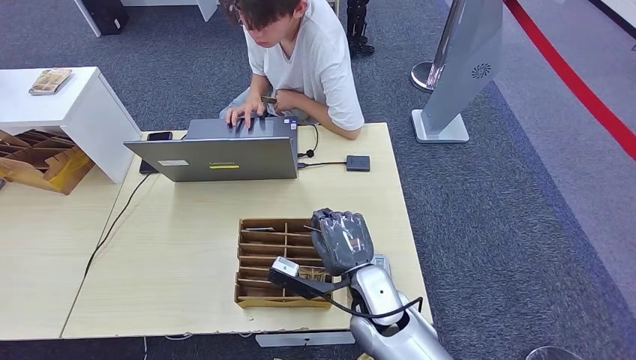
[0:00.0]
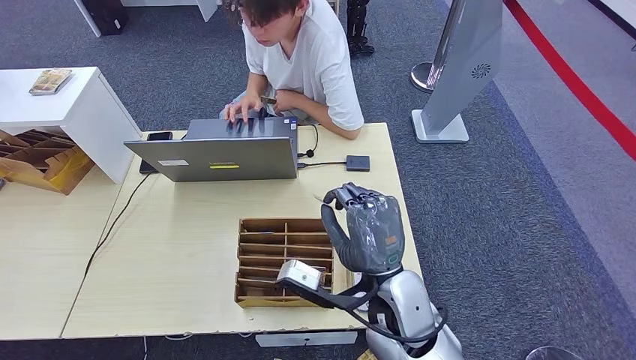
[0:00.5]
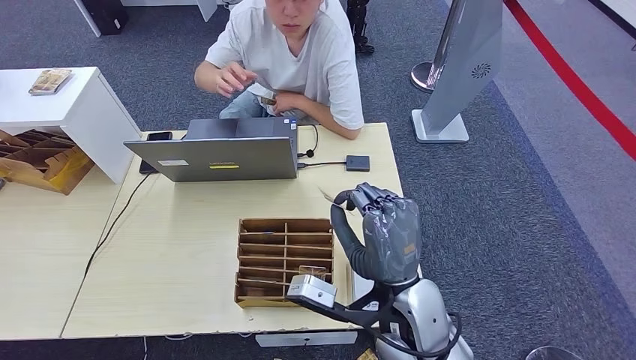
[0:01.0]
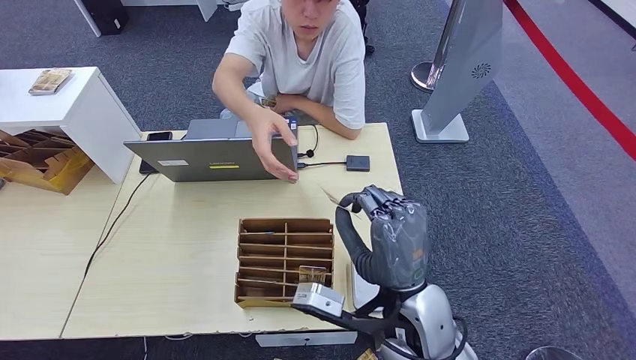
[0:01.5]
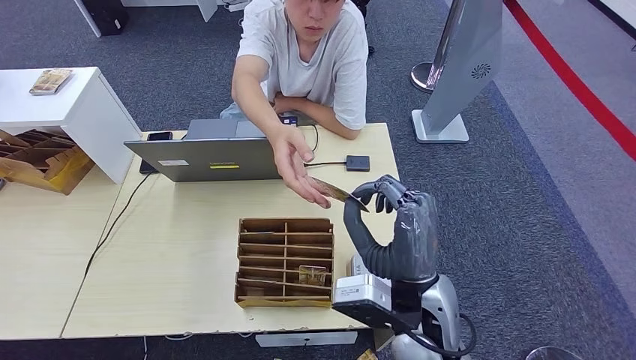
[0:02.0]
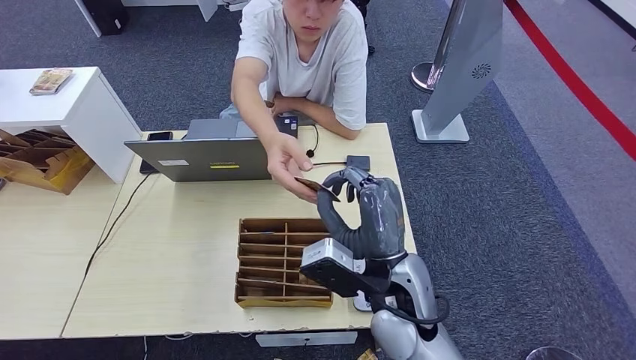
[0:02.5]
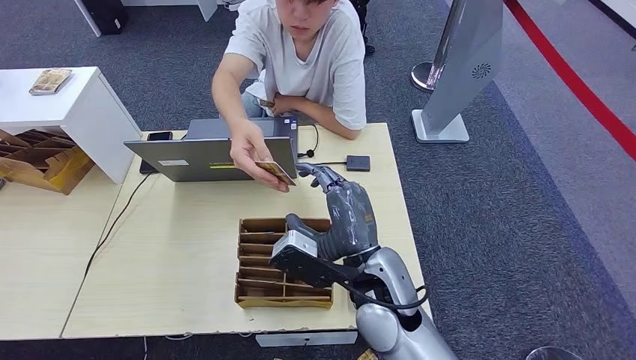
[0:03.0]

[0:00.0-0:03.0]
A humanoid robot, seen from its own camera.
Step, 0.5 to 3.0 s: Hand the room key to the person.
0.0 to 1.5 s: The right hand is displaced upward by some 10 cm.
1.5 to 3.0 s: The right hand moves about 5 cm.

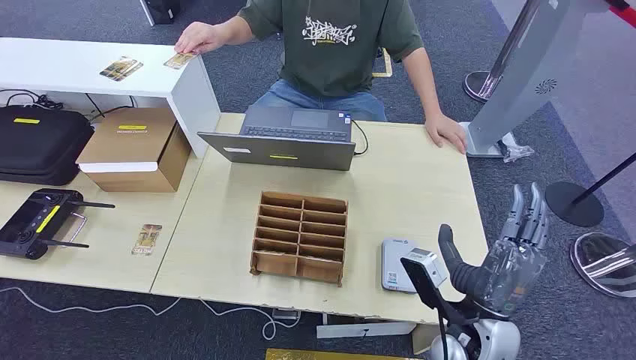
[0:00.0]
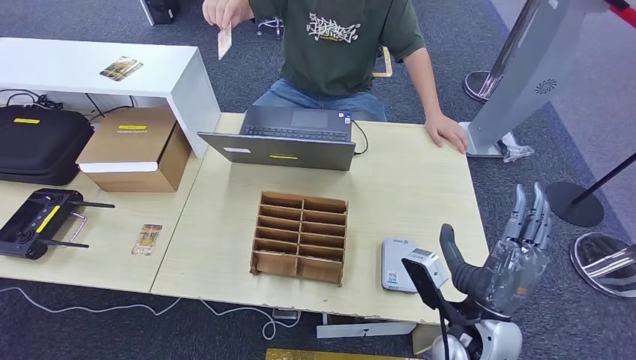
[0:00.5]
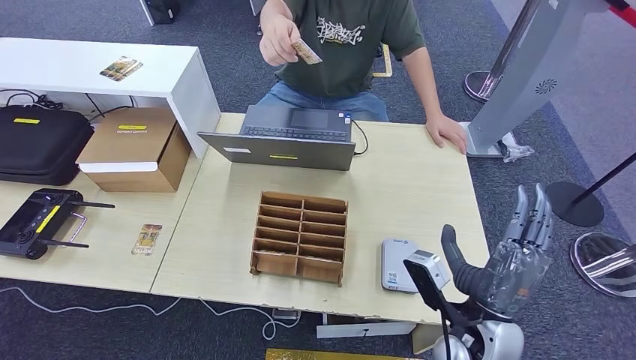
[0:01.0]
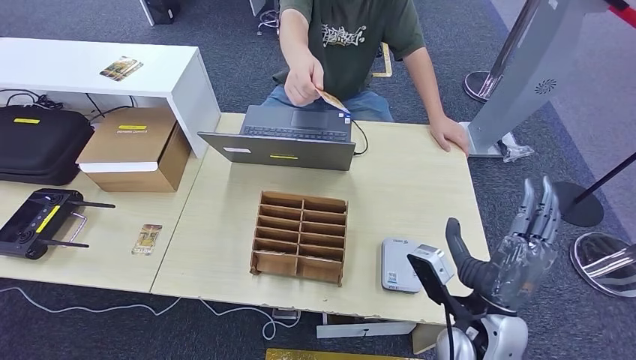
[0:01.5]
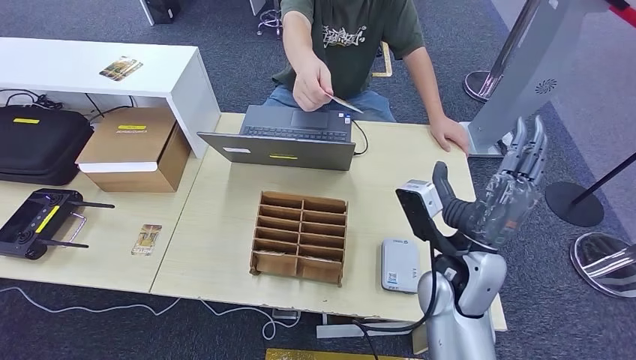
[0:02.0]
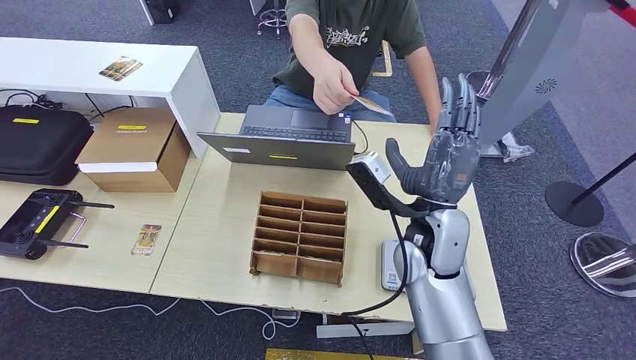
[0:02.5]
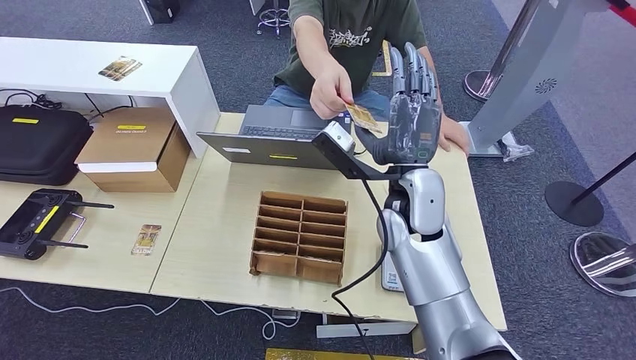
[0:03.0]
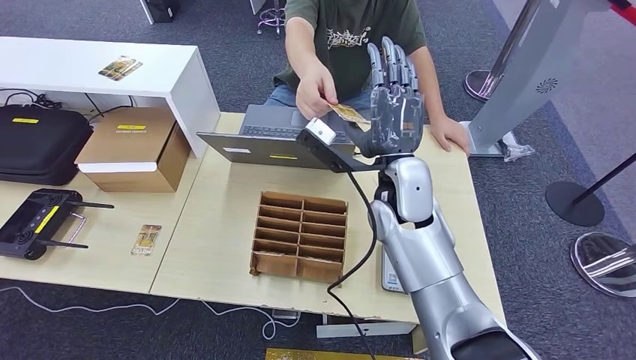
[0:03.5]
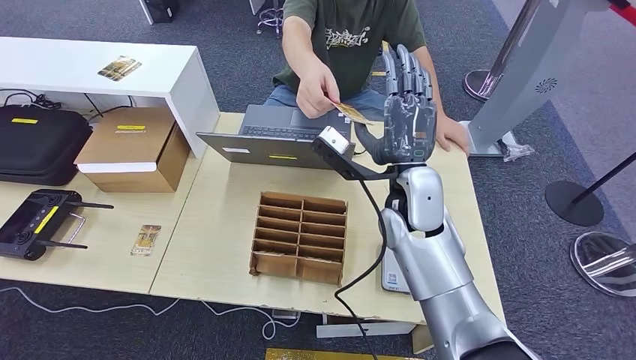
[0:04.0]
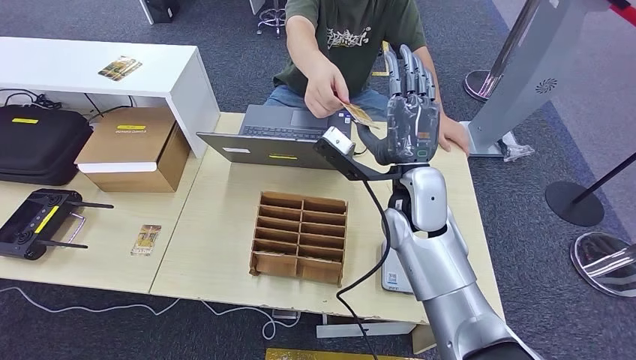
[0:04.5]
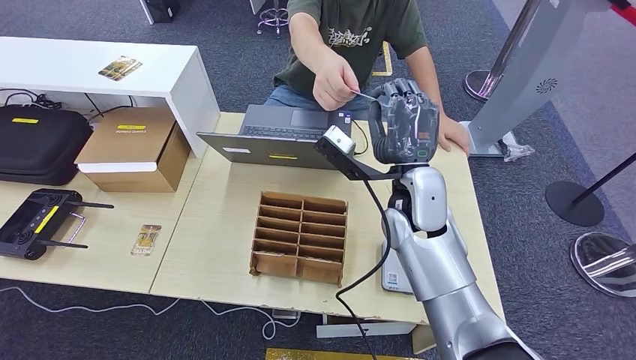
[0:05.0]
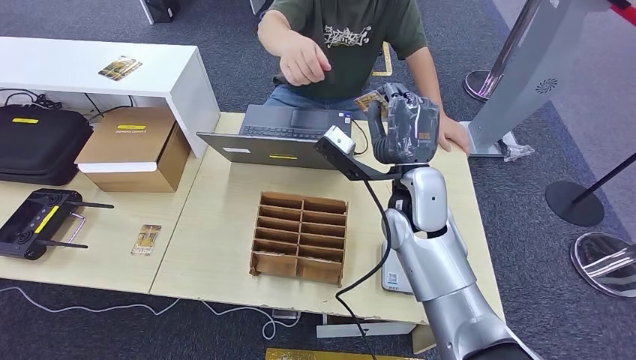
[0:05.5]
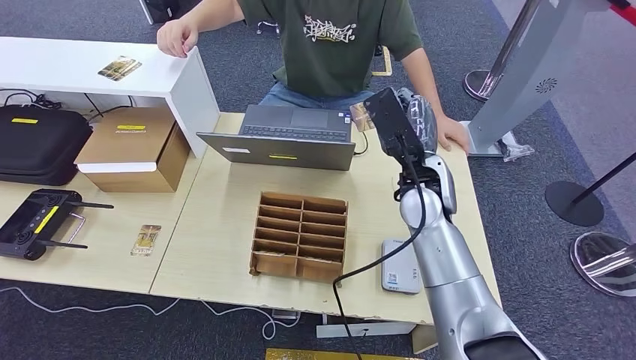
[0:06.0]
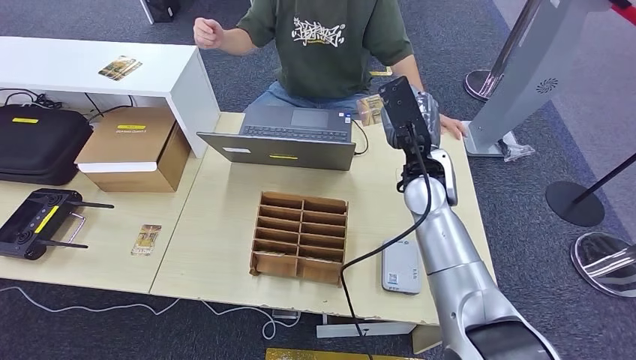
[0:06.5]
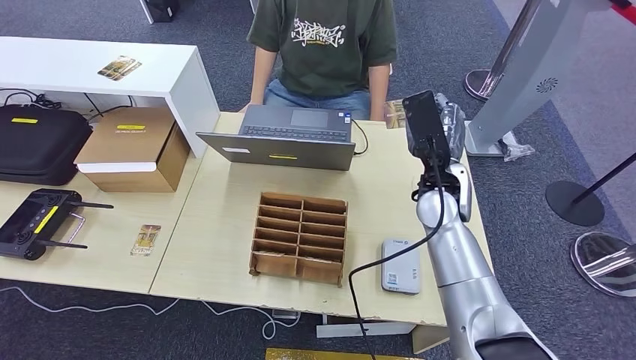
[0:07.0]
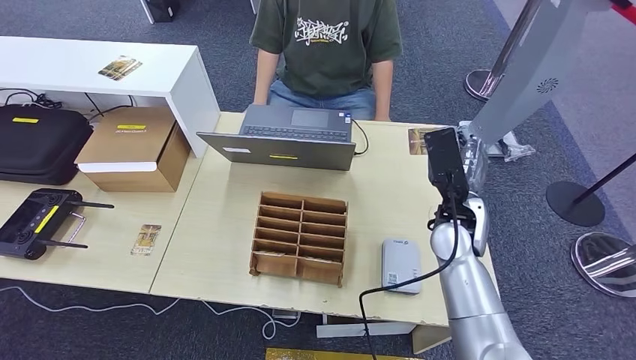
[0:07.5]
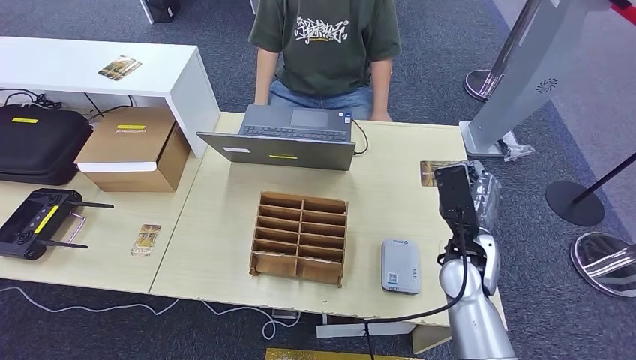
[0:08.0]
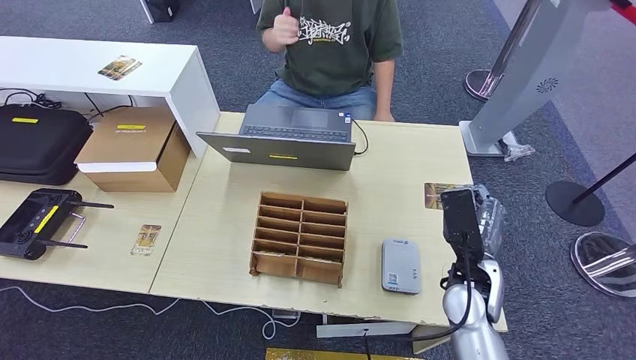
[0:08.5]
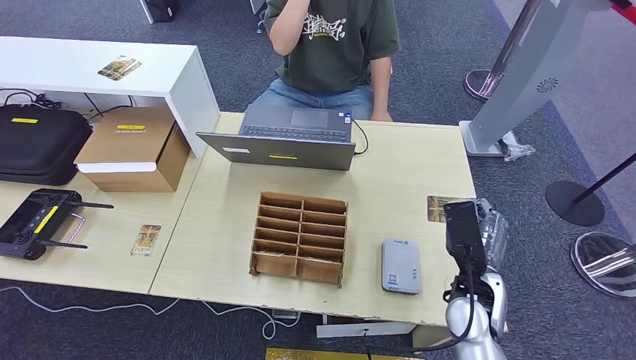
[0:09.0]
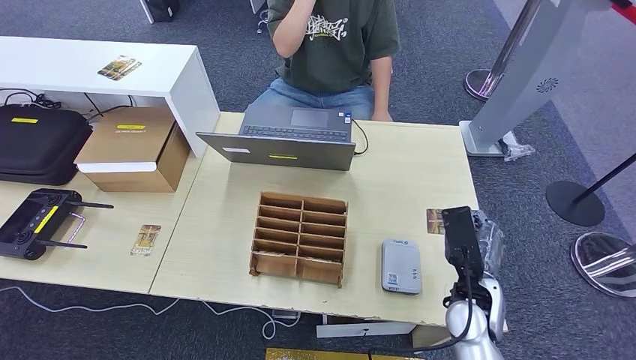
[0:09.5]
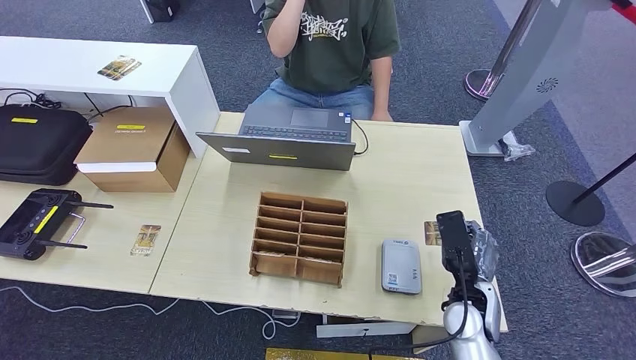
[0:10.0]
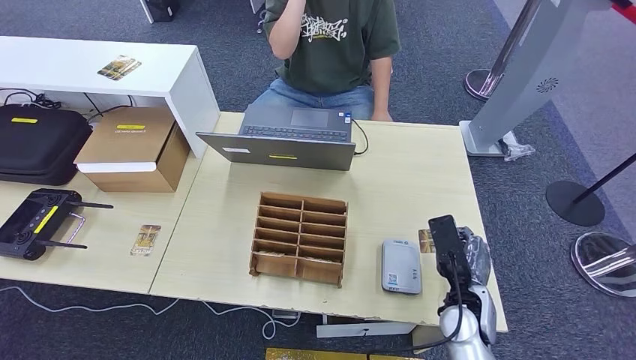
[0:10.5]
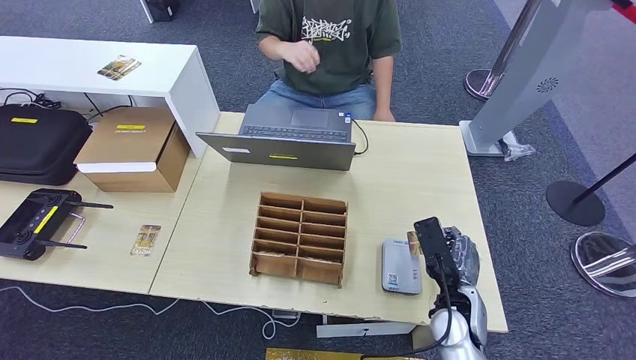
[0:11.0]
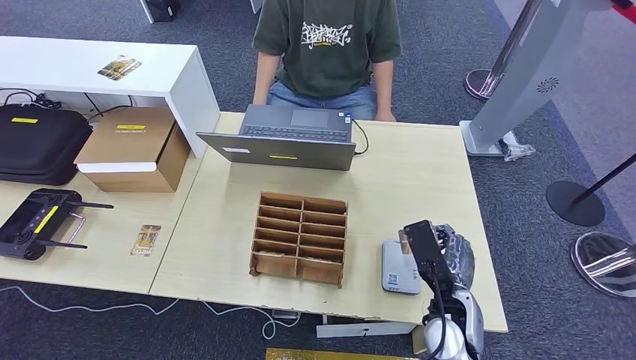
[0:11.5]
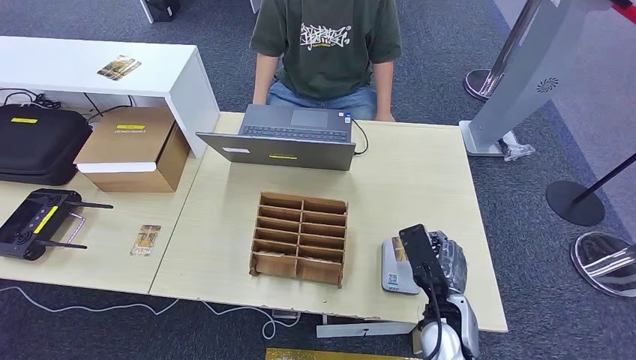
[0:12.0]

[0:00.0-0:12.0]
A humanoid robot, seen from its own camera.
Step, 0.0 to 5.0 s: Take the ID card from the person's hand.
2.0 to 4.0 s: The right hand is displaced forward, to the left and upward by about 15 cm.
6.0 to 8.0 s: The right hand travels downward, backward and to the right by approximately 15 cm.
8.0 to 10.0 s: The right hand is displaced downward and backward by about 10 cm.
10.0 to 12.0 s: The right hand goes roughly 5 cm to the left.

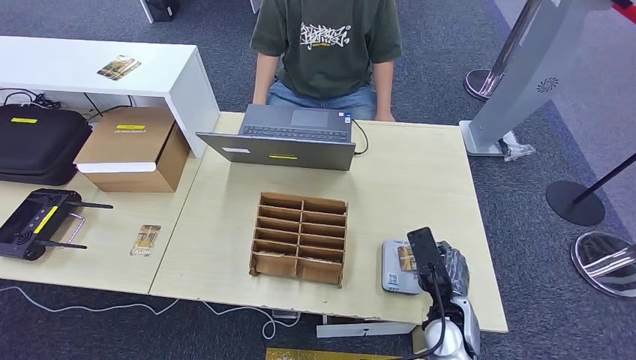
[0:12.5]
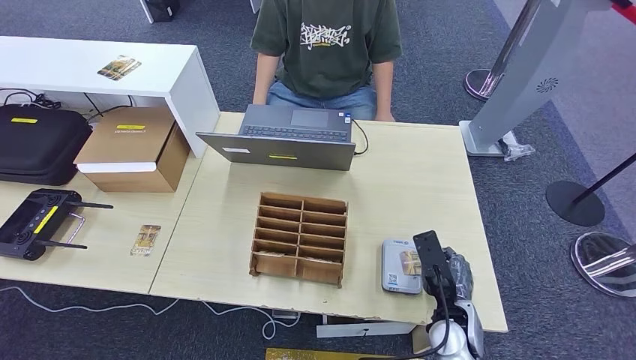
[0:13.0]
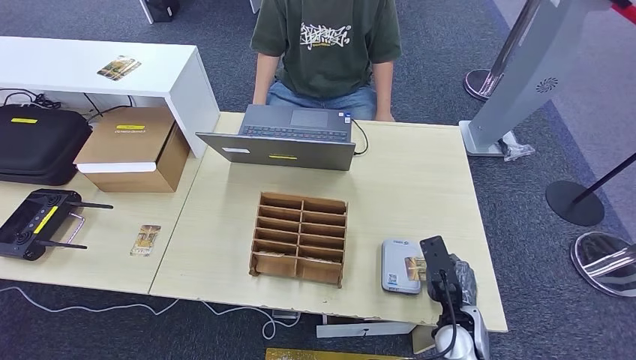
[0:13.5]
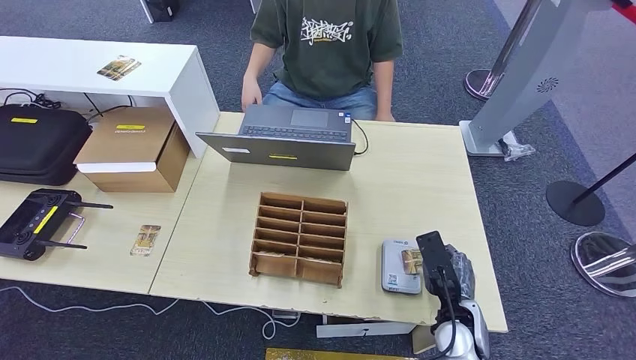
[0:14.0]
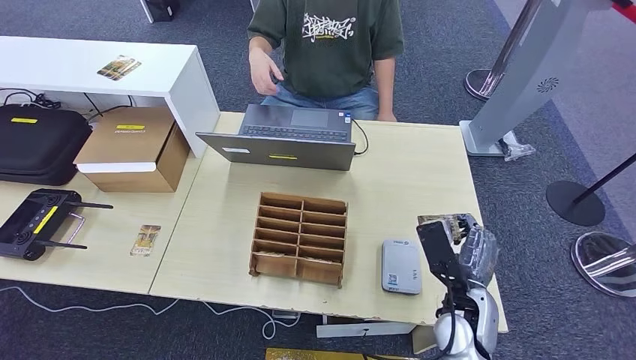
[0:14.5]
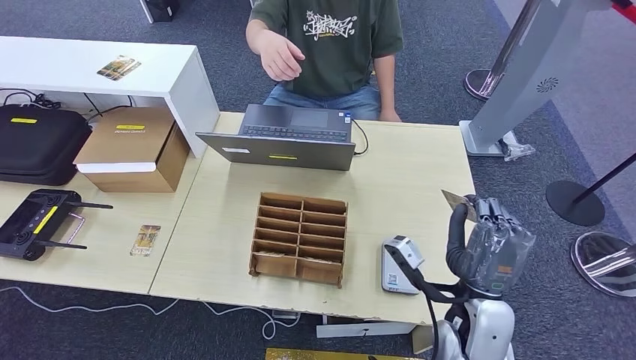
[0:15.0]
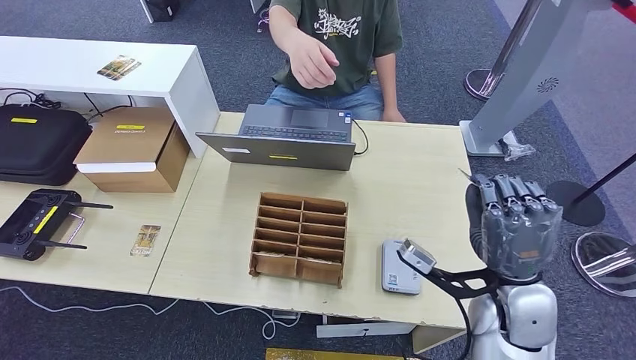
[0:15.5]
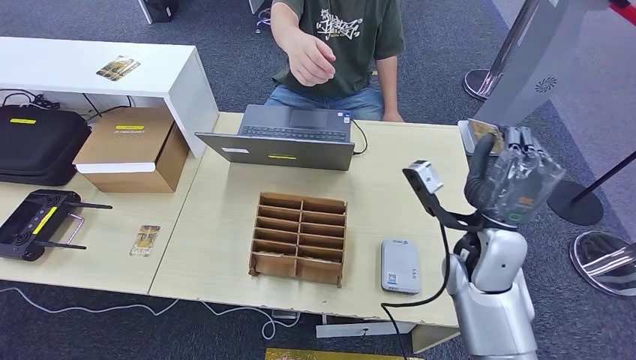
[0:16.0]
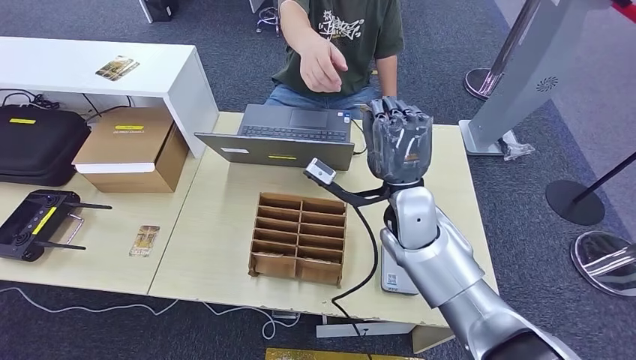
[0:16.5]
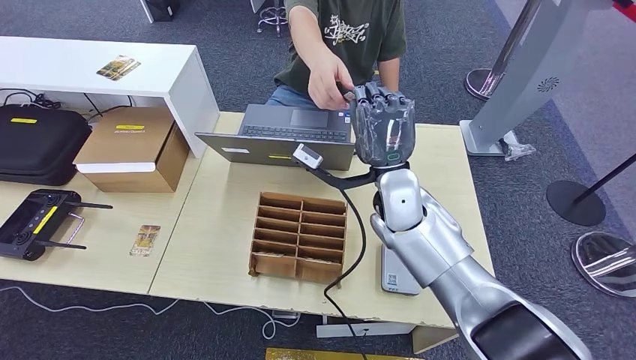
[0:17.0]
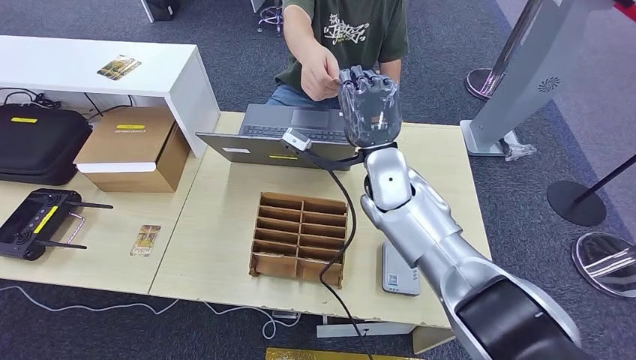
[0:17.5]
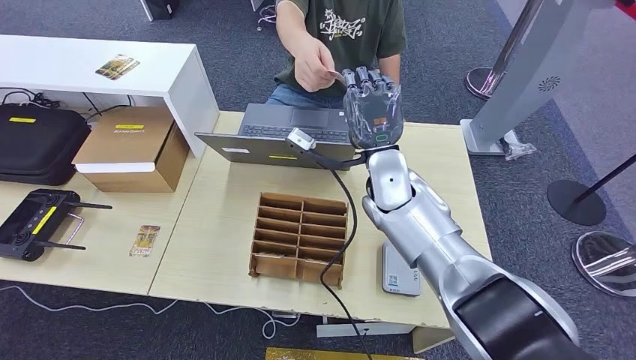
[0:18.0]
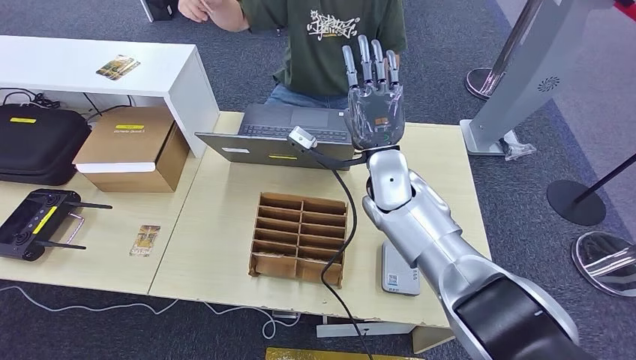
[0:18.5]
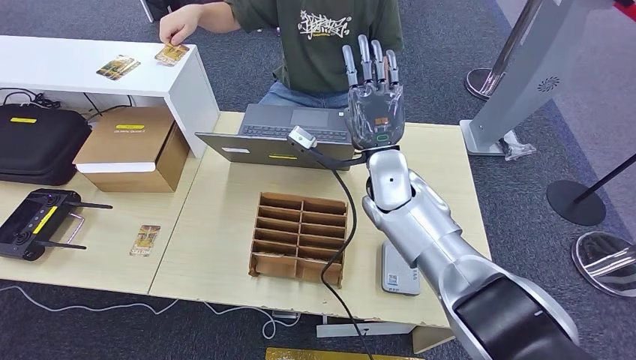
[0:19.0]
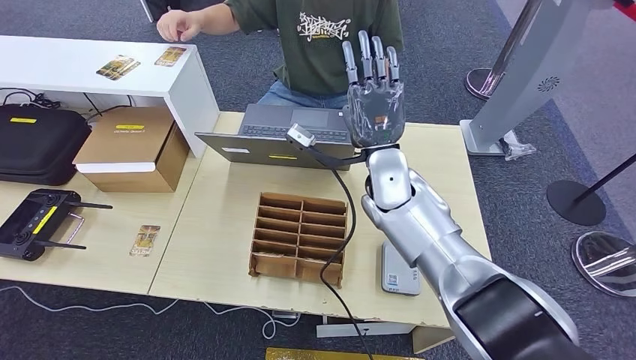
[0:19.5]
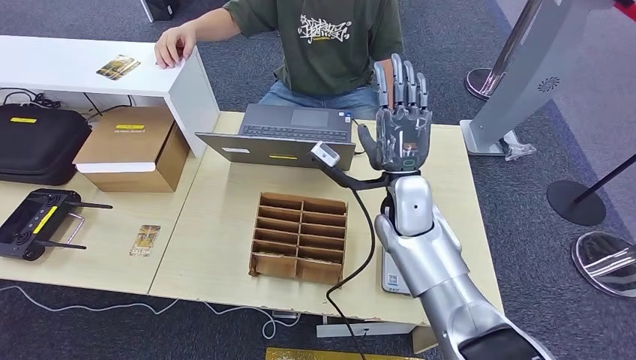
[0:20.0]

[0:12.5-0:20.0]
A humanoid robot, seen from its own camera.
Step, 14.0 to 19.0 s: Hand the ID card to the person.
14.5 to 16.5 s: The right hand is displaced forward, upward and to the left by roughly 20 cm.
16.5 to 18.0 s: The right hand shifts approximately 5 cm forward.
18.0 to 20.0 s: There are only small adjustments of the hands.
